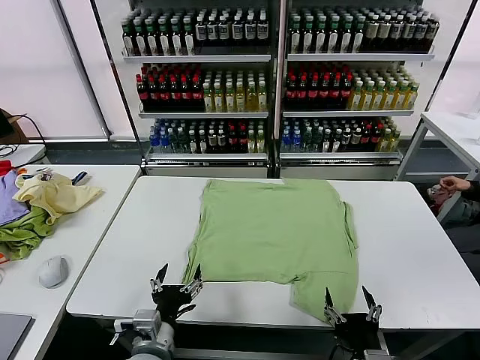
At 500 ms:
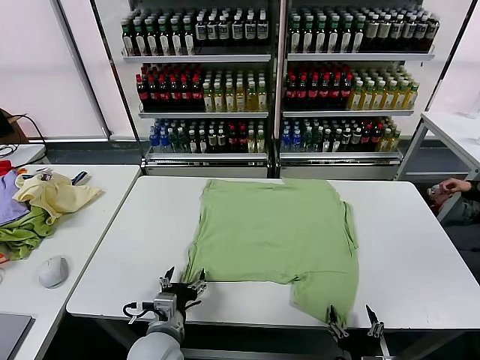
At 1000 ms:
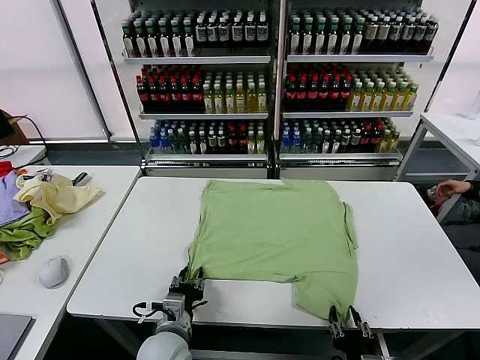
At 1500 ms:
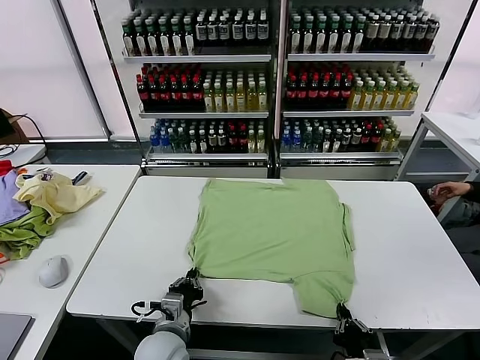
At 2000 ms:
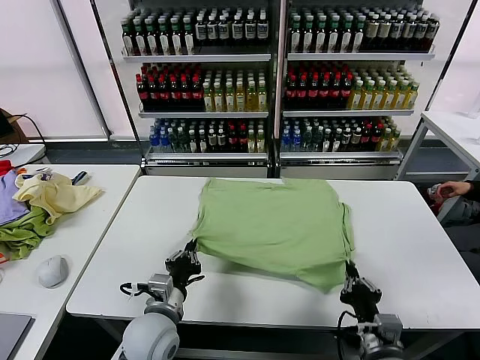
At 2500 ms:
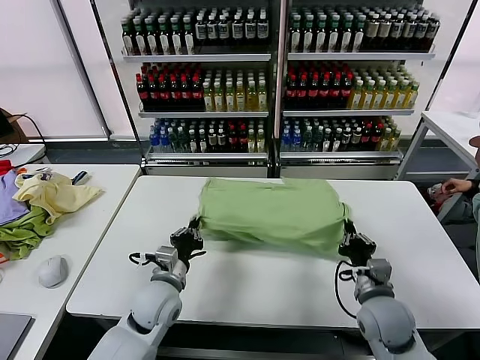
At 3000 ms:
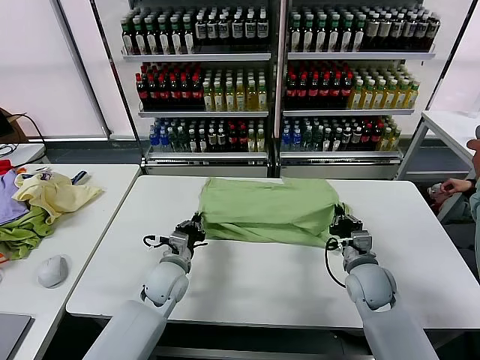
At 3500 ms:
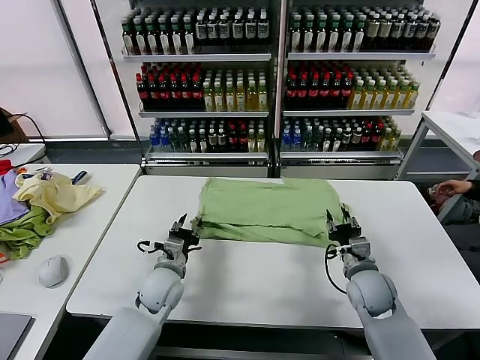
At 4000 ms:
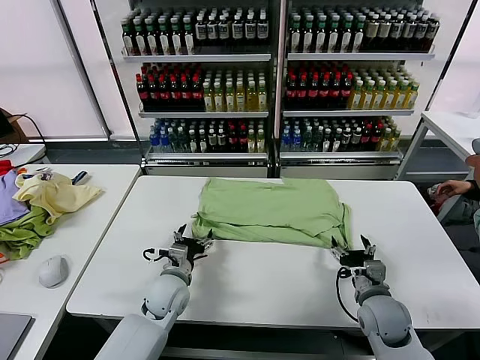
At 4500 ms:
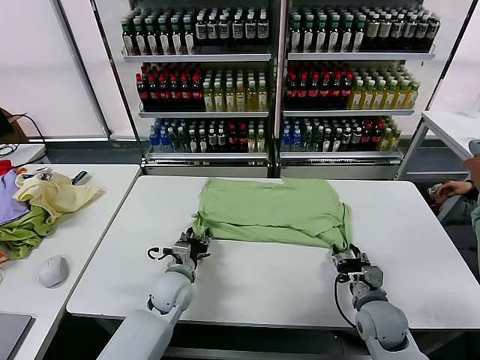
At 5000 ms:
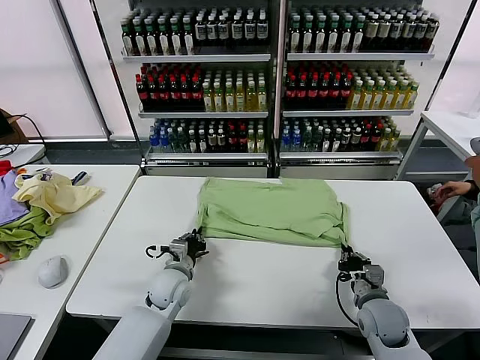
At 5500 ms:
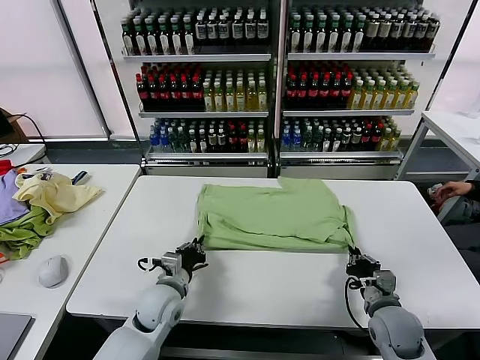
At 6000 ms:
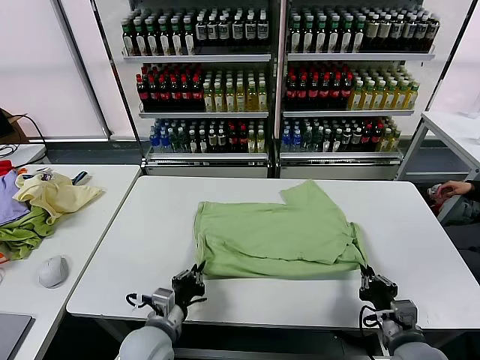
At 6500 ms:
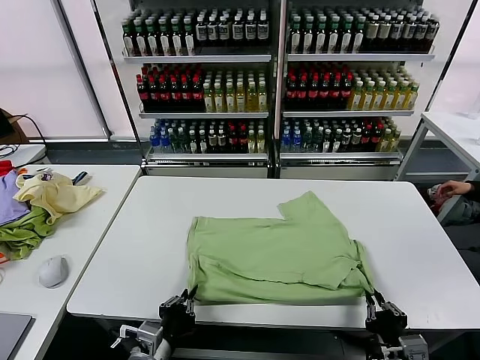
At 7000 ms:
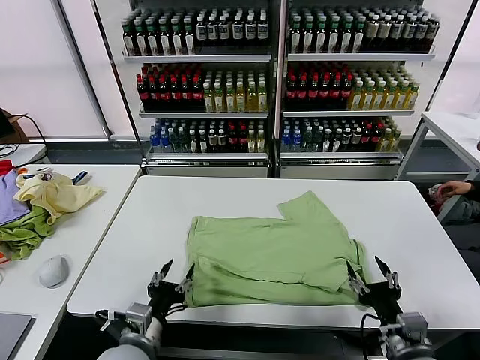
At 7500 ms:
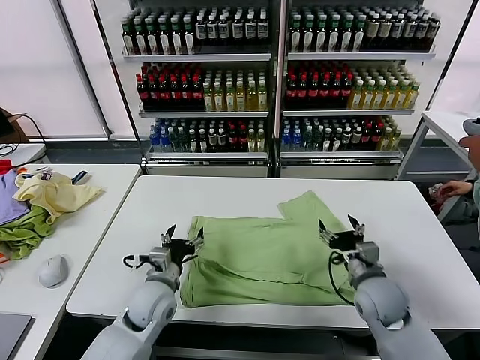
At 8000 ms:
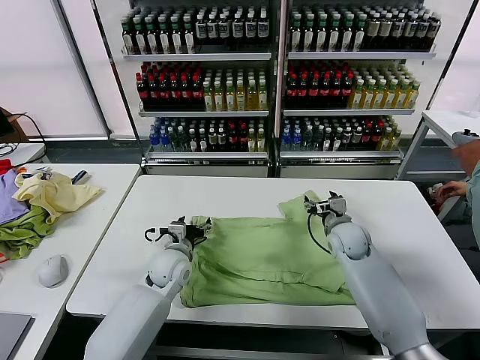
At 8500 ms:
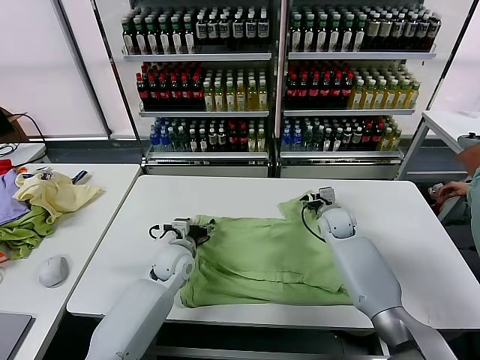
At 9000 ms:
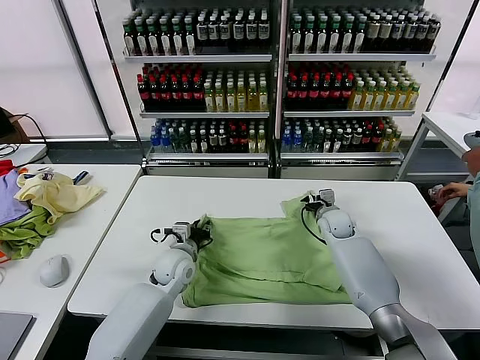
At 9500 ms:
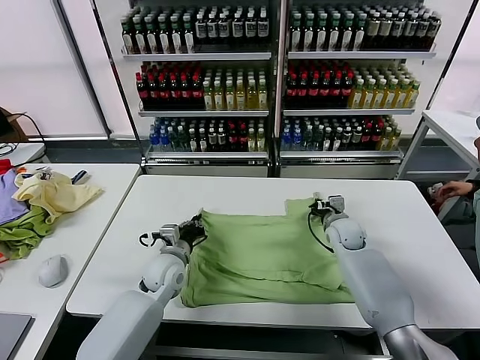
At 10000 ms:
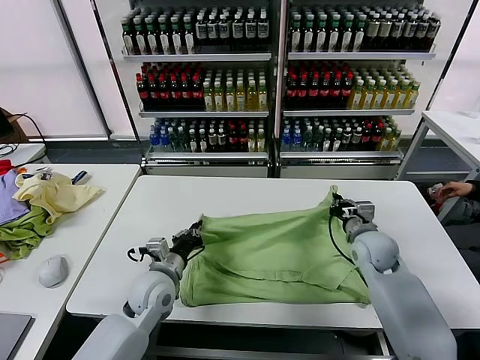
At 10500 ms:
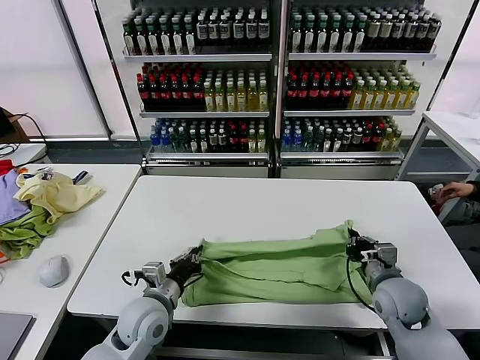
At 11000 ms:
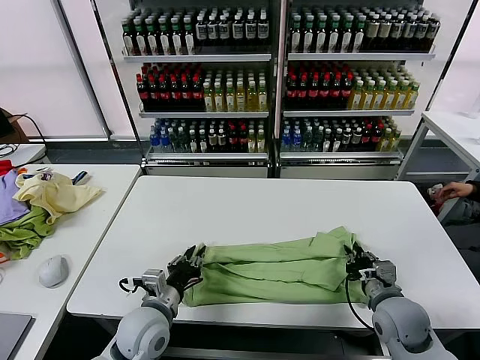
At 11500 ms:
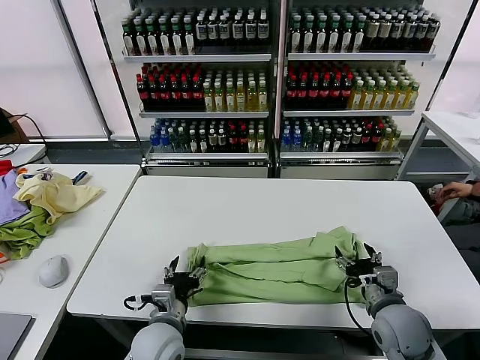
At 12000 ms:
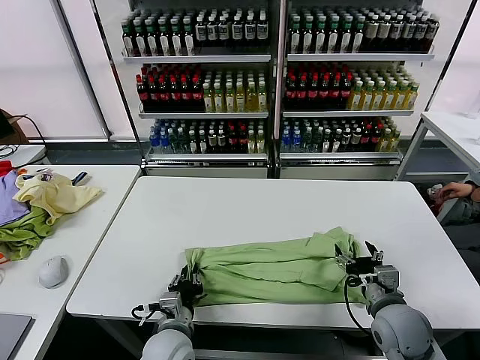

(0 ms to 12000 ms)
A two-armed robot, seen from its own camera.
Task of the whole recording: fold and organize the clothes.
Step, 0 ms - 1500 ms: use both grippers simultaneously to clamp the lower edge of the clothing fabric.
Step, 2000 ms - 3000 ms: use both grippers to drag the lower edge of the fabric forward and fold it over the upper edge.
Step, 3500 ms - 6500 ms: Drag the clothes downward with both gripper.
Step, 7000 ms - 9000 ms: use both grippers simultaneously to clamp the upper edge of the clothing fabric.
Step, 9500 ms - 11000 ms: use both grippers to drag the upper edge of the fabric backward and fold it over the lower edge.
2000 ms - 4000 ms: The right gripper travels forward by about 10 cm, and opens its fingers. The left gripper goes some 10 cm forward and downward, and opens its fingers.
4000 ms - 6000 ms: Both grippers travel together backward, approximately 10 cm. The left gripper closes up. Meanwhile the right gripper closes up.
6000 ms - 8000 ms: The right gripper shifts some 30 cm forward, and opens its fingers. The left gripper shifts about 20 cm forward, and opens its fingers.
8000 ms - 10000 ms: The two grippers go approximately 5 cm backward. The right gripper closes. The left gripper closes.
10000 ms - 12000 ms: The grippers both shift backward by roughly 15 cm. The right gripper opens. Meanwhile the left gripper opens and closes again.

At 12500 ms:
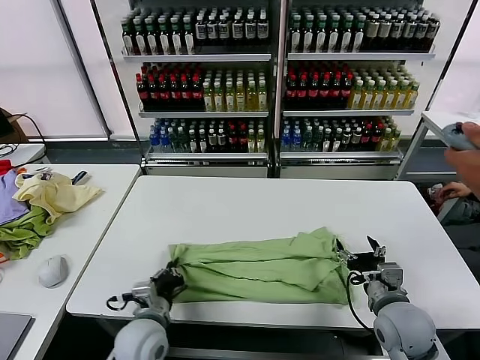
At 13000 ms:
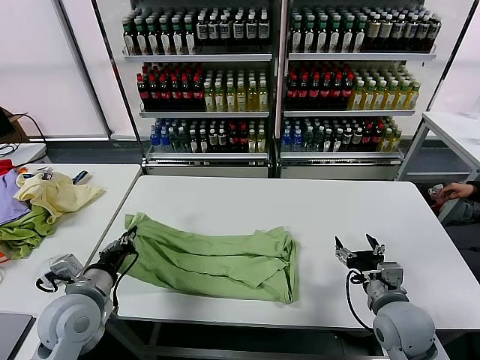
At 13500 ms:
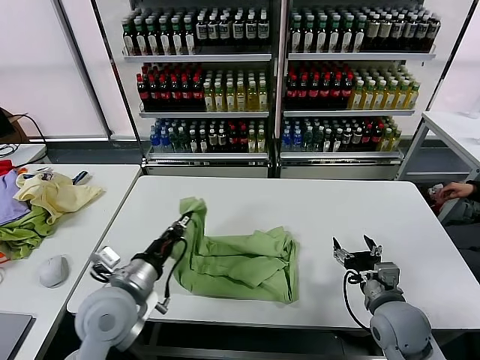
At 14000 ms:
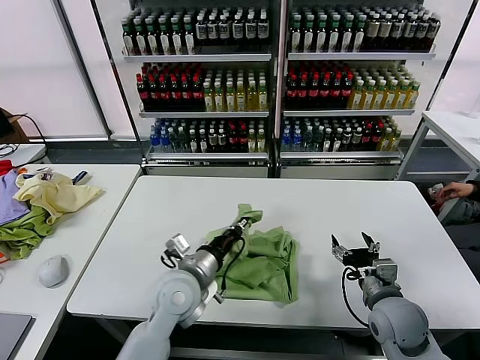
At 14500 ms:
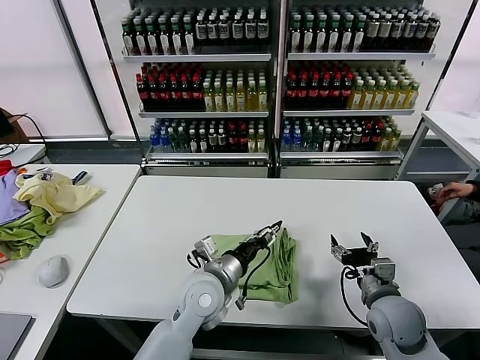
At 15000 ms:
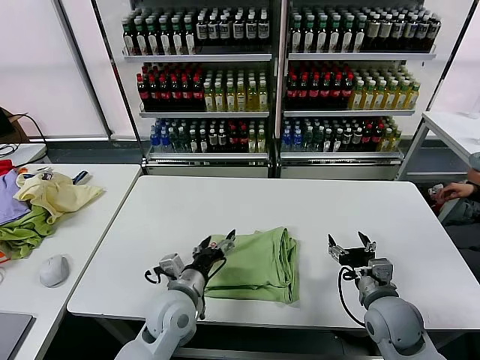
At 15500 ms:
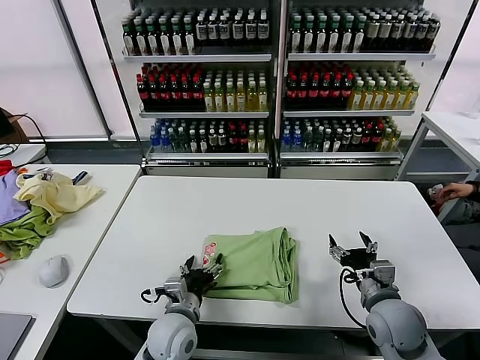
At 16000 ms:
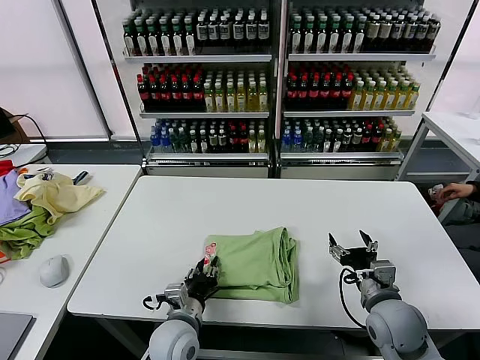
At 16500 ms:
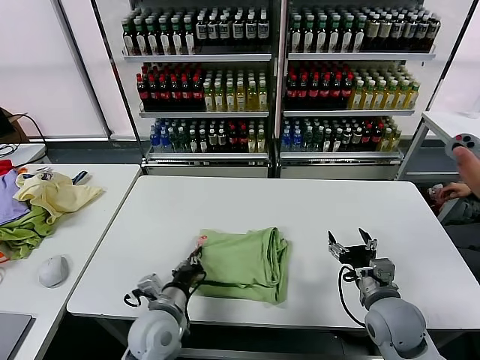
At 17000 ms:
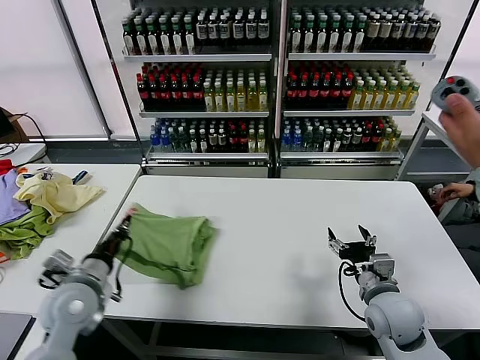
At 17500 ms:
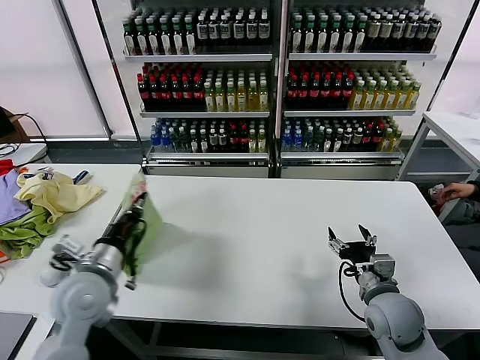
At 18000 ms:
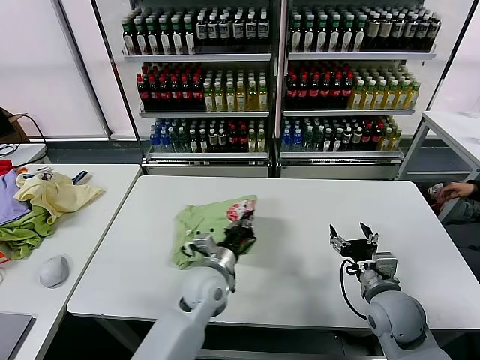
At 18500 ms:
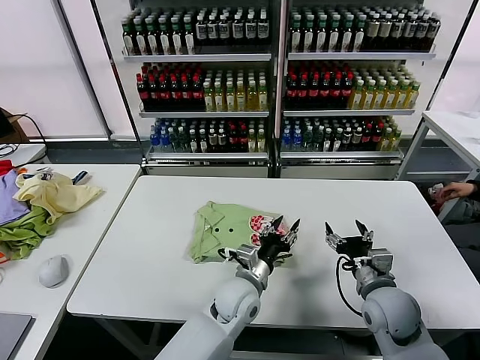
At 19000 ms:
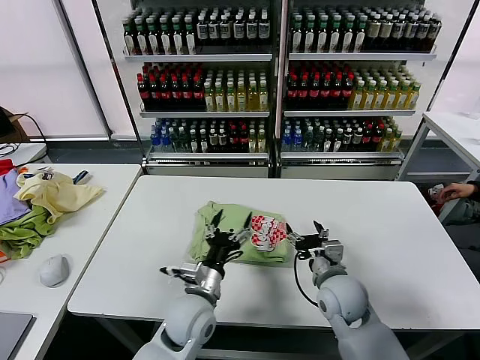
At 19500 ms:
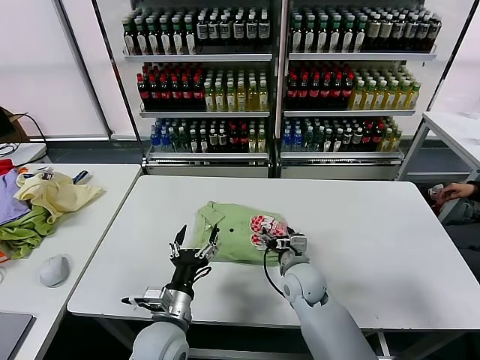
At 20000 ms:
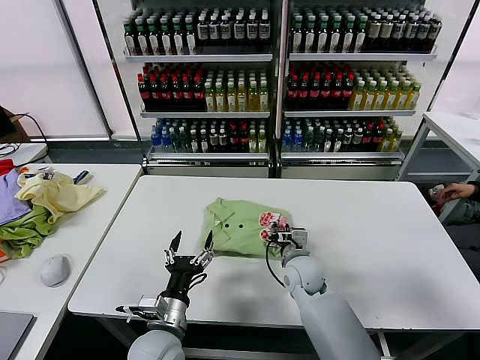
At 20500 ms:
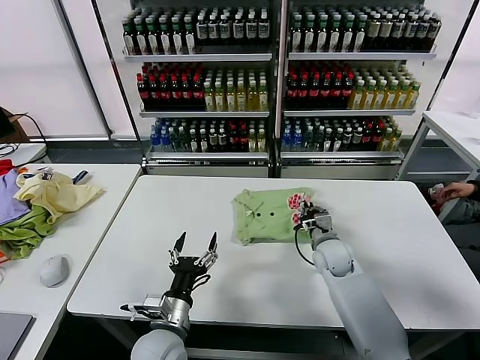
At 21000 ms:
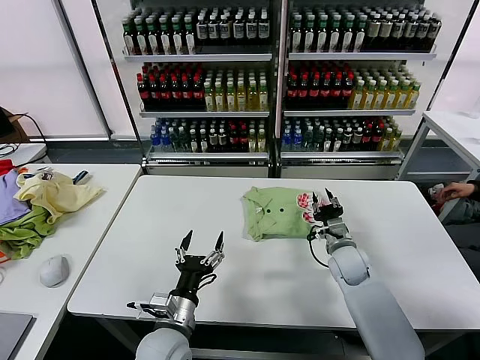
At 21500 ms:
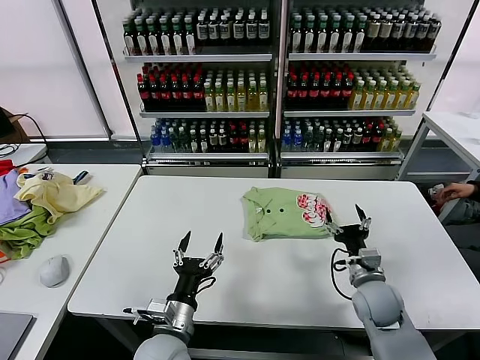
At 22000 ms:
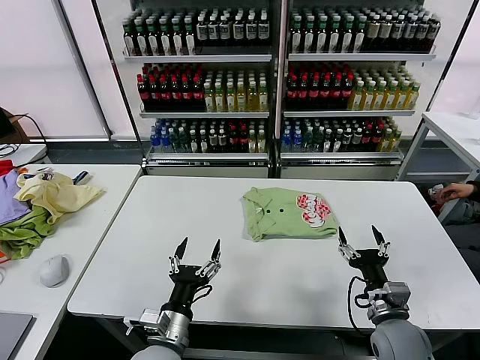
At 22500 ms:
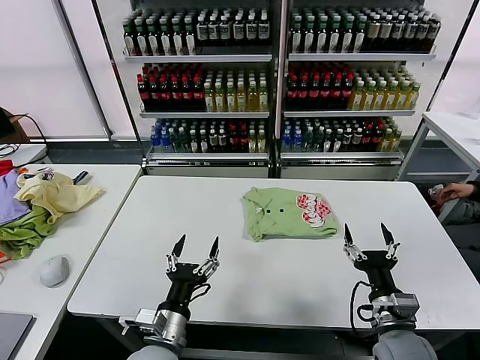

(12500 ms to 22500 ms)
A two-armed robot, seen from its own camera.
Task of the whole recording: fold and organize the clothes.
Step, 12500 ms - 14000 ms: use the left gripper to drag the left edge of the fabric to the left and folds it over the right edge.
Step, 15000 ms - 18000 ms: Flip the folded clothes over with left gripper.
Step, 18500 ms - 21000 ms: Drag the clothes to the center of the table.
12500 ms - 14500 ms: The left gripper is displaced to the right, upward and forward by roughly 15 cm, and opens up.
14500 ms - 16500 ms: The left gripper goes about 10 cm to the left, downward and backward, and closes up.
16500 ms - 18500 ms: The left gripper is displaced to the right and forward by roughly 20 cm, and opens up.
18500 ms - 20500 ms: The left gripper moves to the left and backward, about 20 cm, and opens up. The right gripper is displaced forward and to the left by approximately 15 cm, and closes its fingers.
20500 ms - 22500 ms: The right gripper goes some 25 cm backward, and opens up.

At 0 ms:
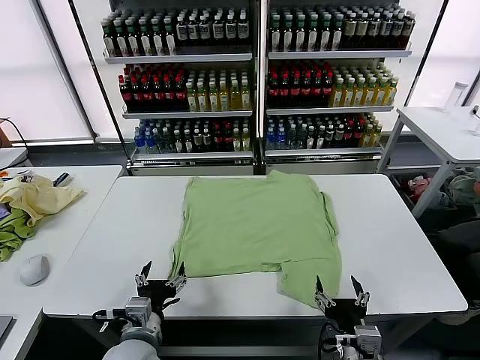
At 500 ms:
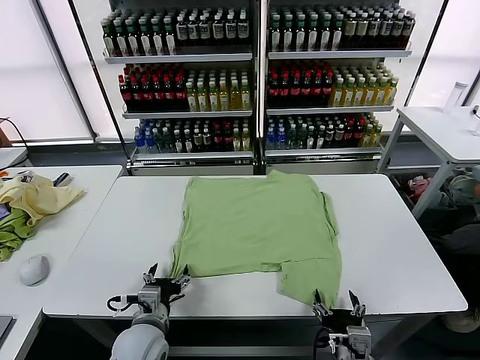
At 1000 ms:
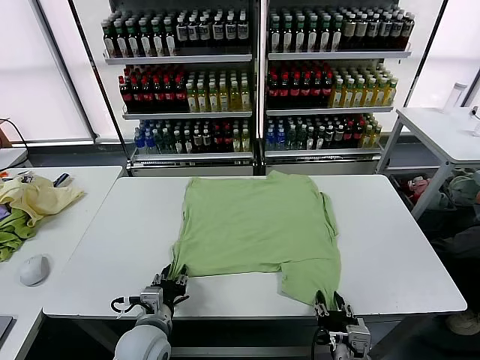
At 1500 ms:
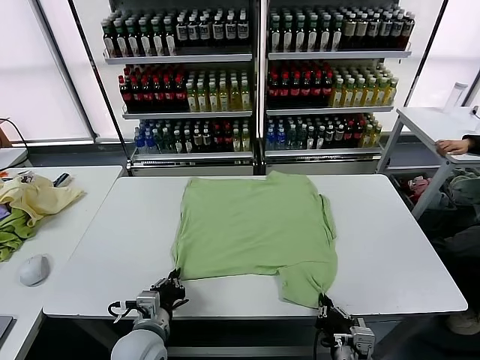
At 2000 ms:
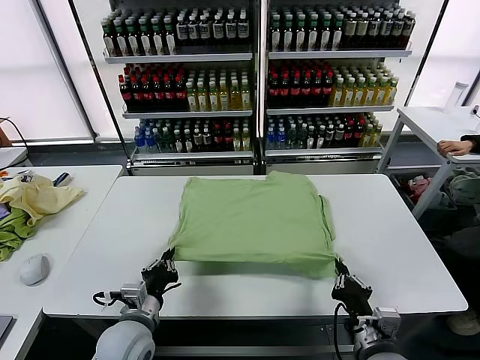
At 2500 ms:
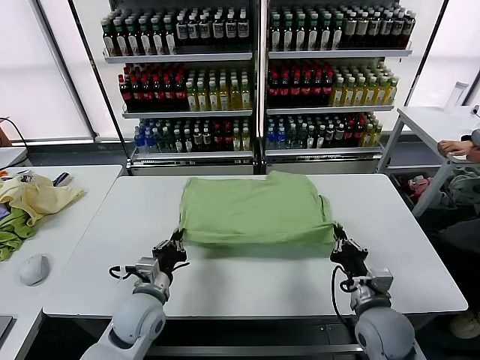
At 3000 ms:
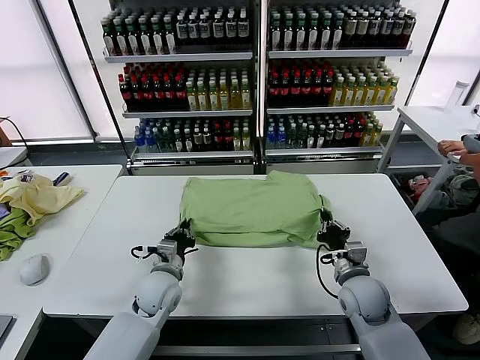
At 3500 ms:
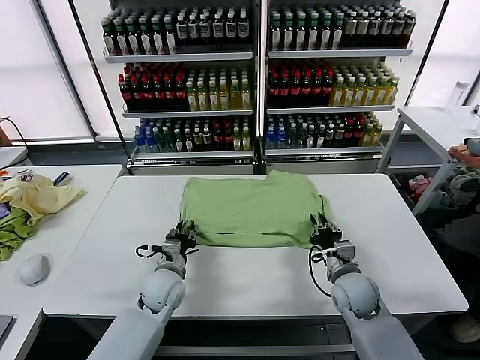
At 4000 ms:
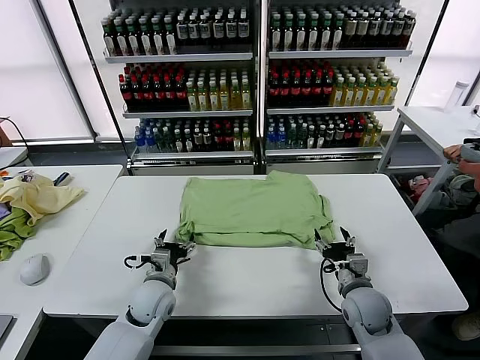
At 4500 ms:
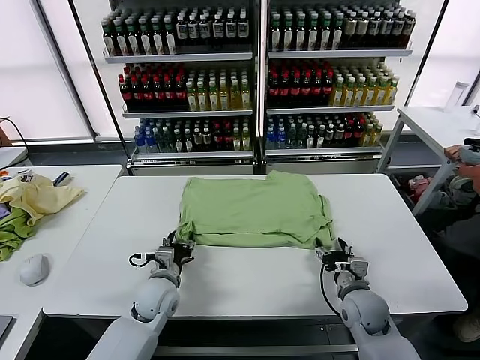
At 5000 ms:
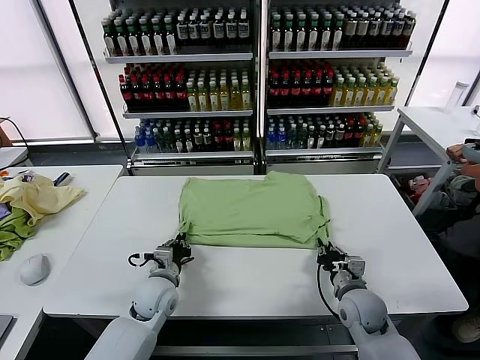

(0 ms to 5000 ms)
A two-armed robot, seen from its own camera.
Task of the whole recording: fold and organize the clothes.
Step, 0 ms - 1500 ms: use both grippers simultaneously to clamp the lower edge of the clothing fabric.
Step, 2000 ms - 3500 ms: use both grippers to drag the lower edge of the fabric forward and fold it over the upper edge.
2500 ms - 5000 ms: The right gripper shifts about 5 cm downward, and opens and closes again; the left gripper shifts some 5 cm forward, and opens, then closes once more.
